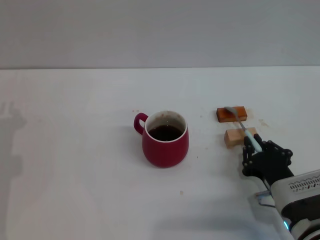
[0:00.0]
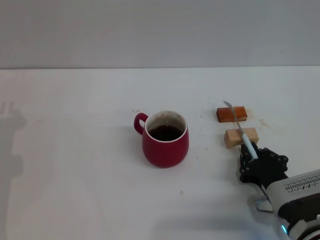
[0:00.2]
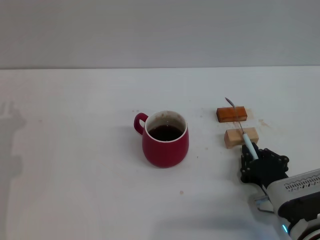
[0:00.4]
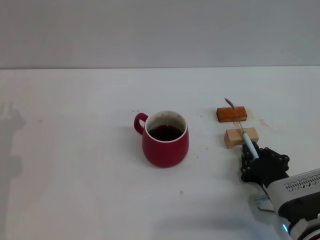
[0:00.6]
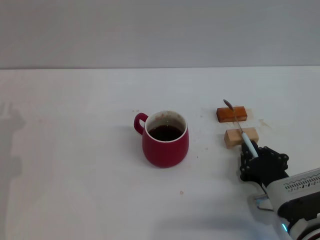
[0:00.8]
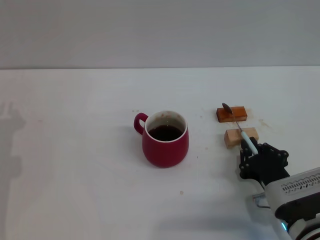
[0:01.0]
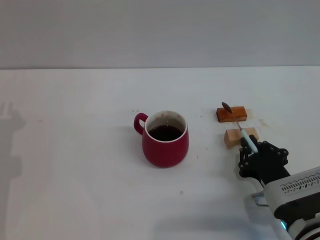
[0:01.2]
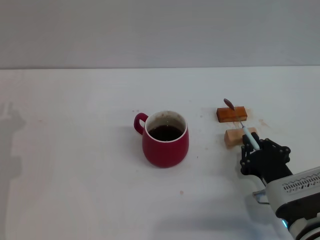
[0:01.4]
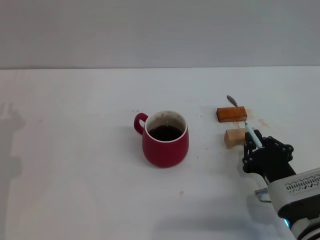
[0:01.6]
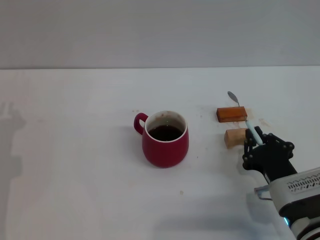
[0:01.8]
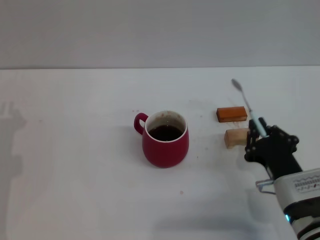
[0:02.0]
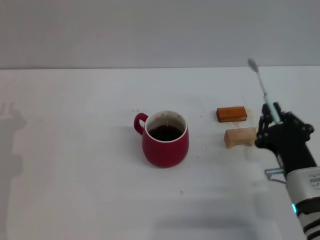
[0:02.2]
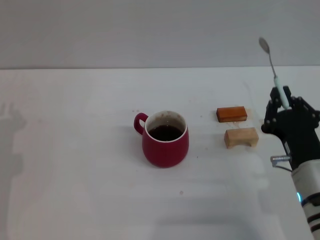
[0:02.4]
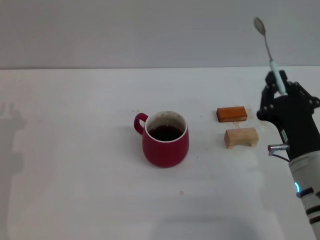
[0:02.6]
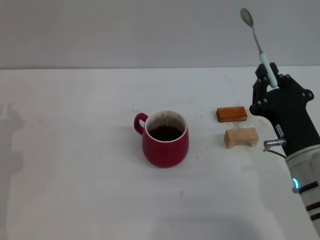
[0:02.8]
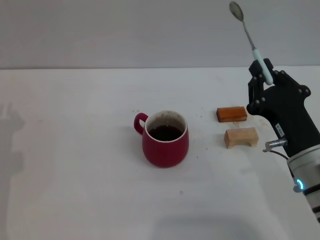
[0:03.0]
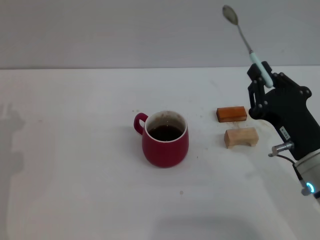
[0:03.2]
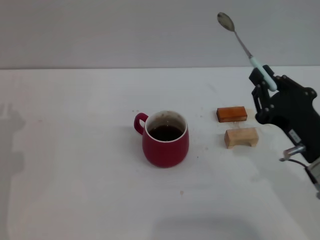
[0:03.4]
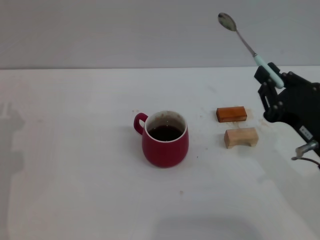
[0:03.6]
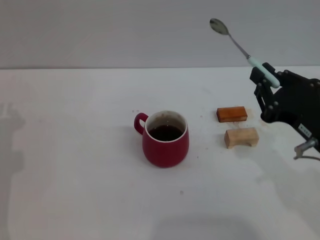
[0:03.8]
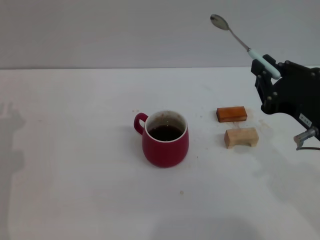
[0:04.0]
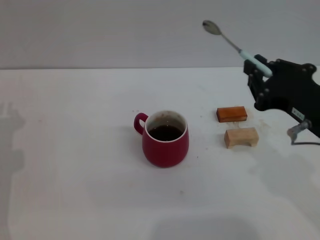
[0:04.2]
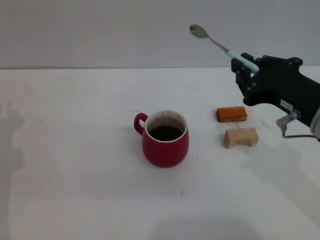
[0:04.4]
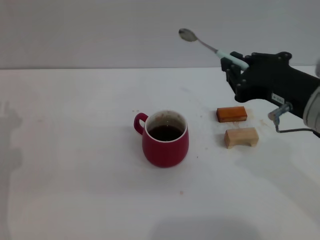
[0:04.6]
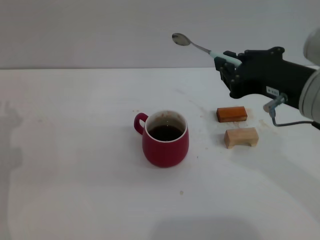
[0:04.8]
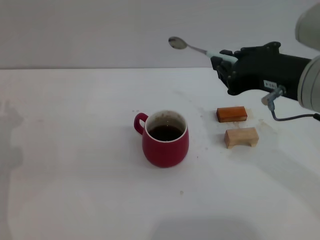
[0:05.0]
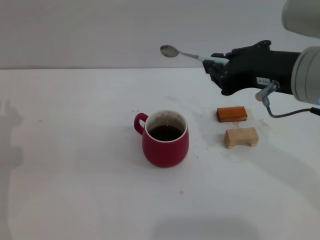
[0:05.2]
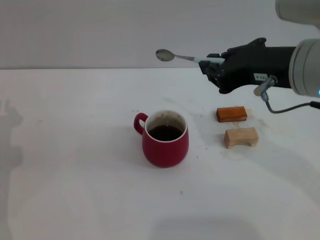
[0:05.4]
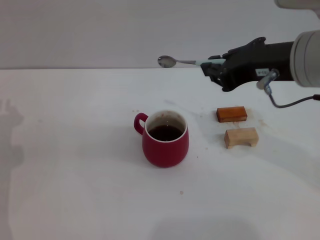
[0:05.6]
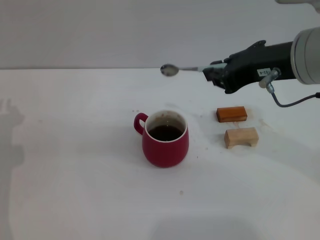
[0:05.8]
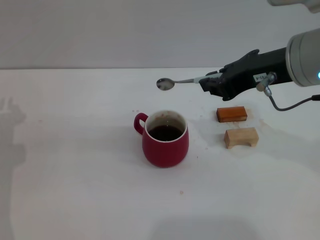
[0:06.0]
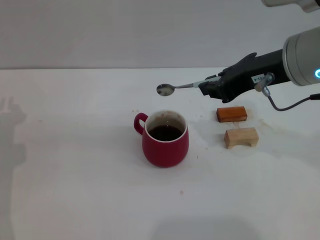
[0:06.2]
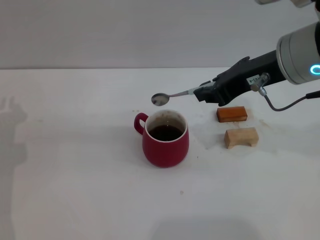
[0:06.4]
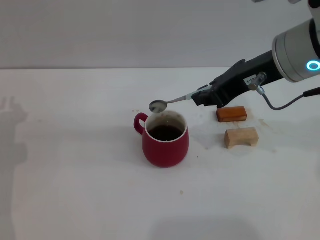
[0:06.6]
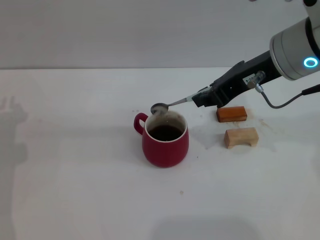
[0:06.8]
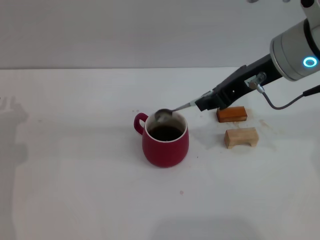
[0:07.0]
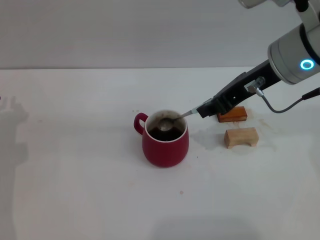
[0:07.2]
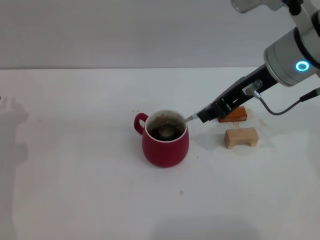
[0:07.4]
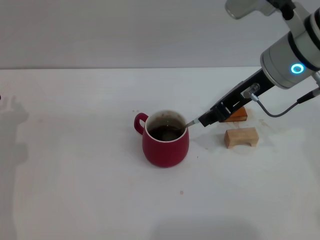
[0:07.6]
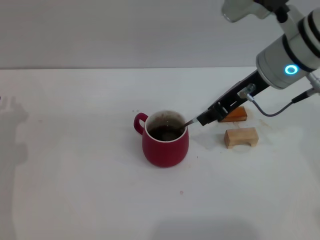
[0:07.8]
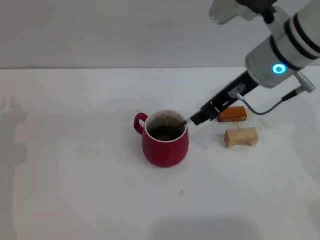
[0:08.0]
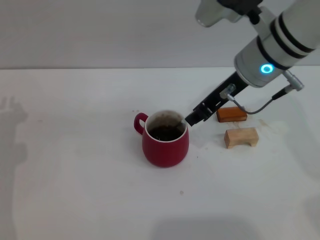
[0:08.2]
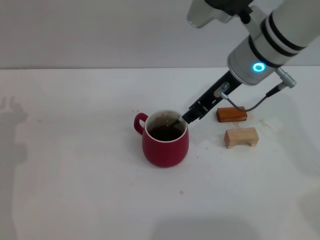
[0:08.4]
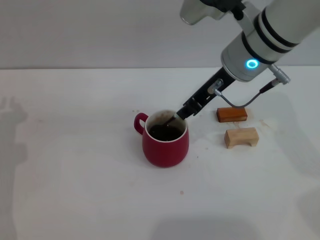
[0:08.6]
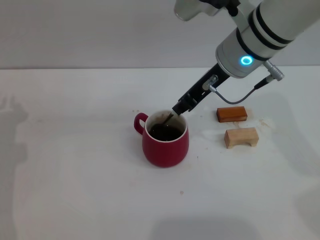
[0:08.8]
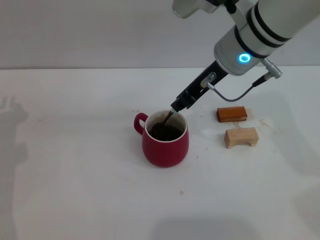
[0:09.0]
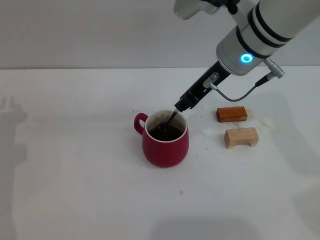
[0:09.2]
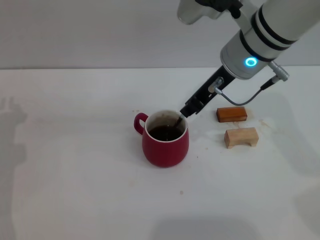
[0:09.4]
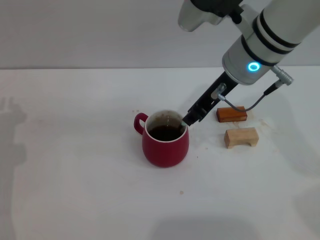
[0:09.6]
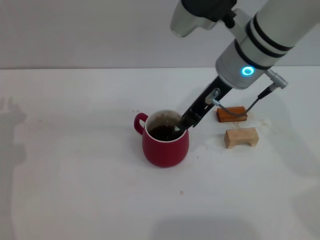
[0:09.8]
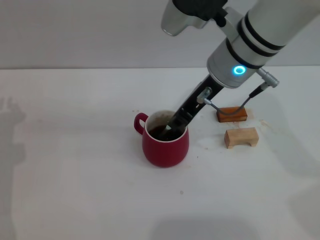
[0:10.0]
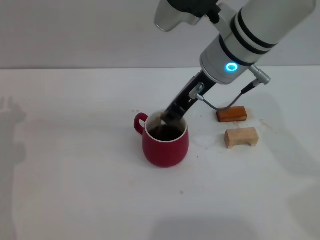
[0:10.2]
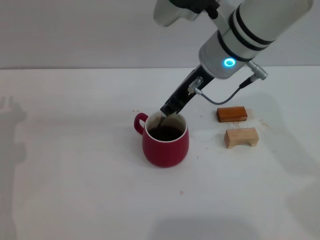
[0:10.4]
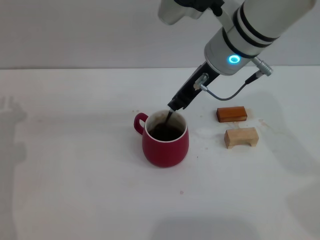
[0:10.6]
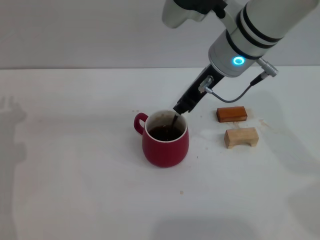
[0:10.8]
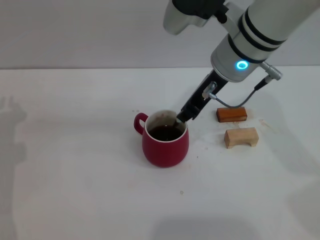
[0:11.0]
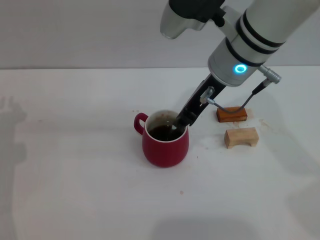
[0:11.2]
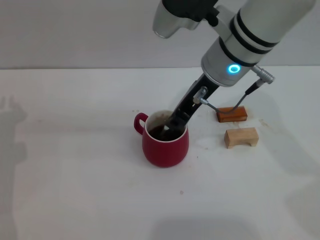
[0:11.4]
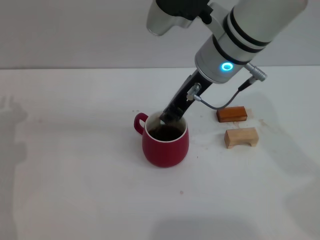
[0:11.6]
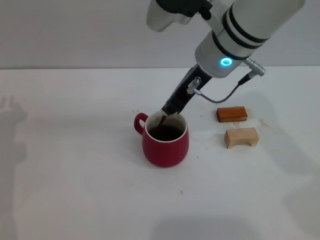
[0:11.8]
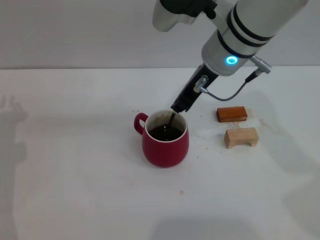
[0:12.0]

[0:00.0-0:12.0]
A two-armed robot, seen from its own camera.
Task of the whole recording: Move the red cup to the center, lift the blue spoon, stir it three times in the cup, and put the spoon into the cup.
0:00.0 to 0:01.6: Neither gripper changes place.
0:01.6 to 0:03.0: The right gripper goes some 10 cm upward.
0:03.0 to 0:04.4: The right gripper heads upward, covering roughly 10 cm.
0:04.4 to 0:06.0: The right gripper travels upward and forward by approximately 10 cm.
0:06.0 to 0:07.6: The right gripper goes some 5 cm forward.
0:07.6 to 0:09.0: The right gripper is displaced to the left by some 5 cm.
0:09.0 to 0:12.0: There are only small adjustments of the grippers.

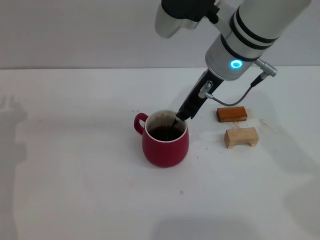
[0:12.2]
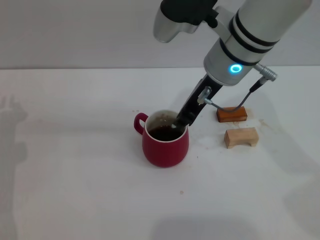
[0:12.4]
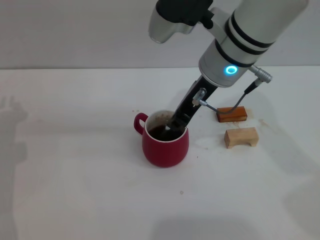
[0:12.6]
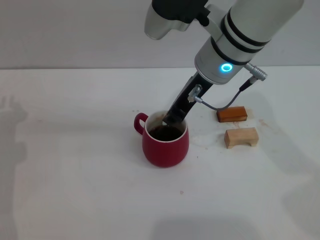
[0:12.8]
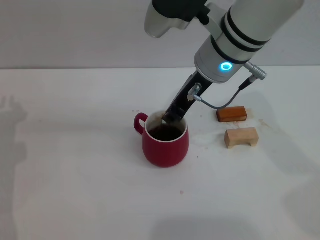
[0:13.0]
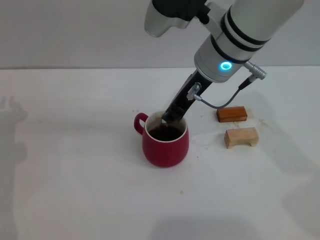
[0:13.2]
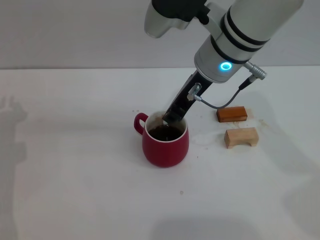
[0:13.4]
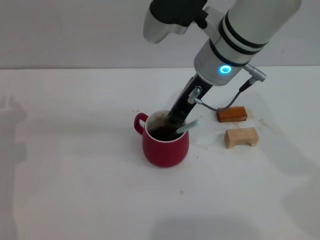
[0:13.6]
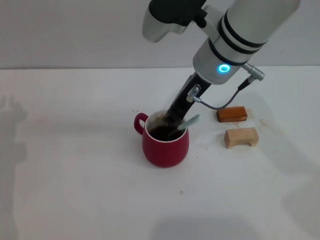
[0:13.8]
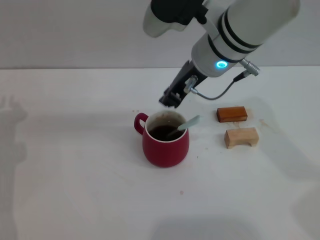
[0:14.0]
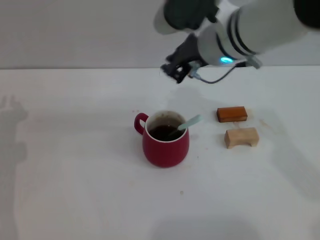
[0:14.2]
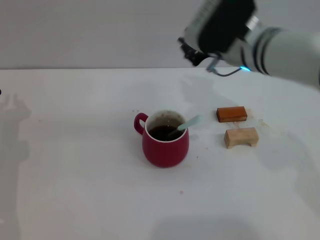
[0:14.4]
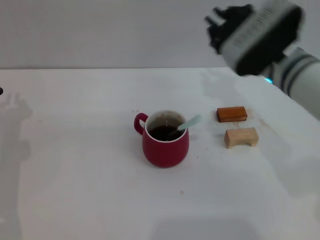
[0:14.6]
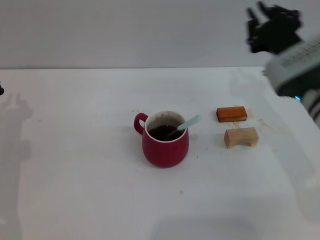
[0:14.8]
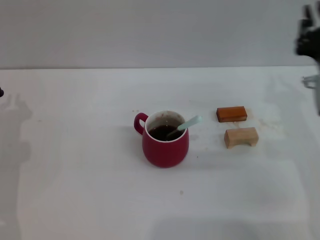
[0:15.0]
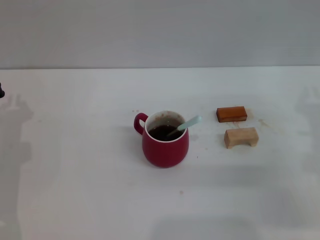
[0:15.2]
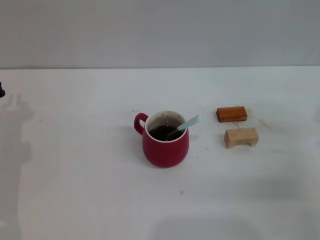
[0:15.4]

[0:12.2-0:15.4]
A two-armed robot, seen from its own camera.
Task of the whole recording: Move the red cup to the center, lift the blue spoon, stir it three times in the cup, and put the spoon into the cup.
0:12.2 to 0:13.8: The grippers stay close to where they were, moving slightly.
0:13.8 to 0:15.4: The right gripper travels to the right, downward and backward by approximately 30 cm.

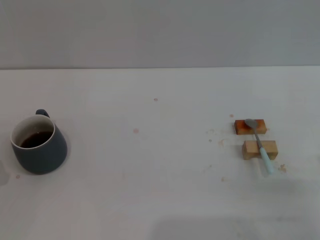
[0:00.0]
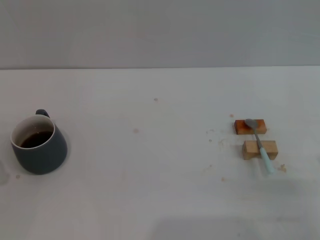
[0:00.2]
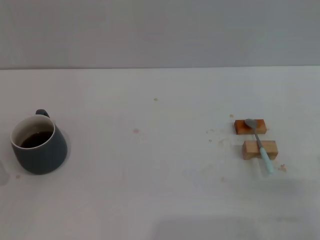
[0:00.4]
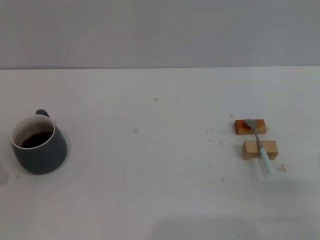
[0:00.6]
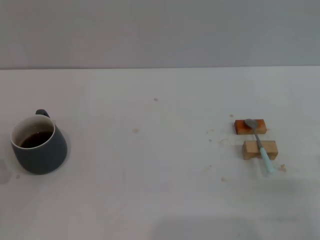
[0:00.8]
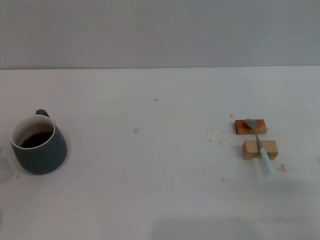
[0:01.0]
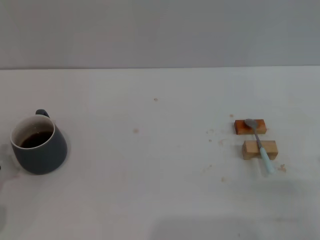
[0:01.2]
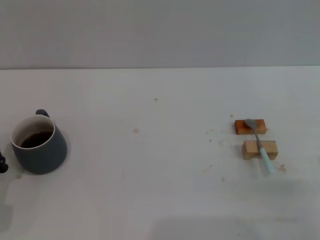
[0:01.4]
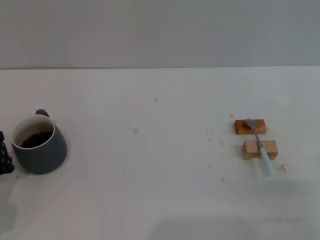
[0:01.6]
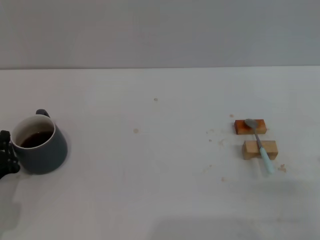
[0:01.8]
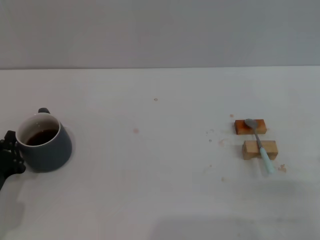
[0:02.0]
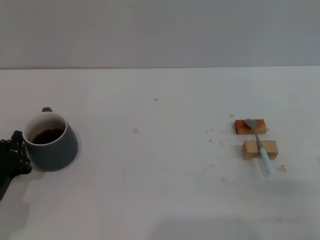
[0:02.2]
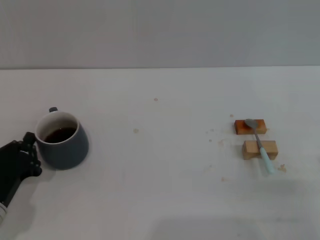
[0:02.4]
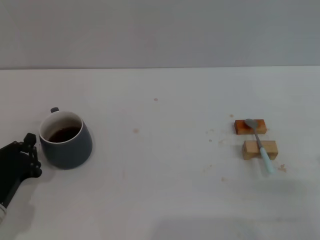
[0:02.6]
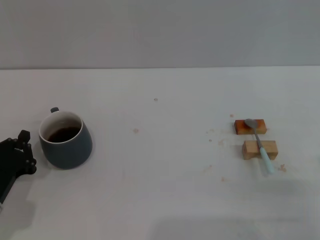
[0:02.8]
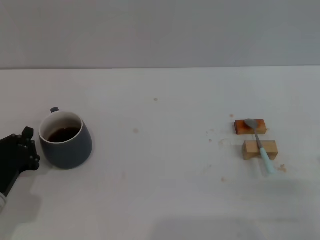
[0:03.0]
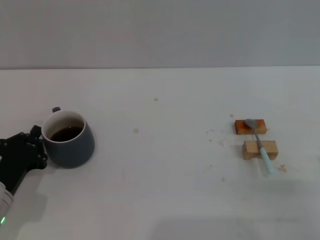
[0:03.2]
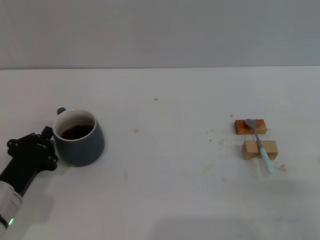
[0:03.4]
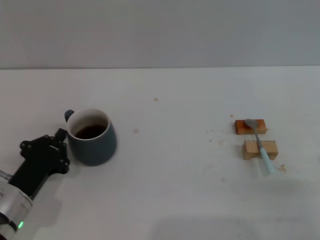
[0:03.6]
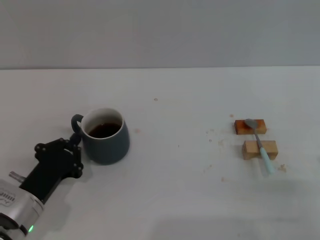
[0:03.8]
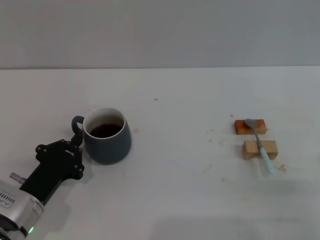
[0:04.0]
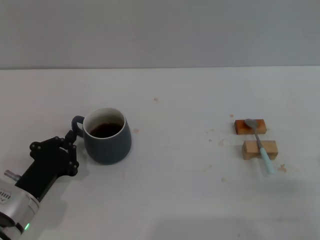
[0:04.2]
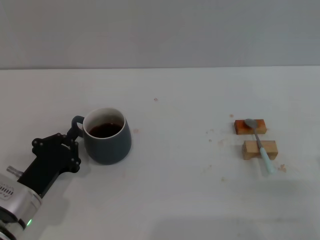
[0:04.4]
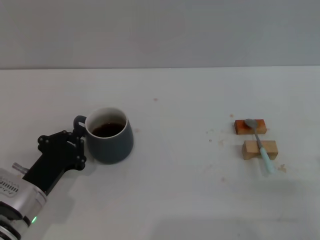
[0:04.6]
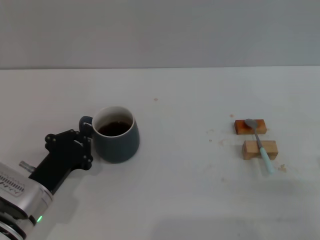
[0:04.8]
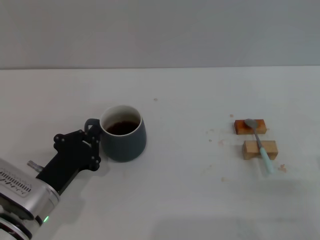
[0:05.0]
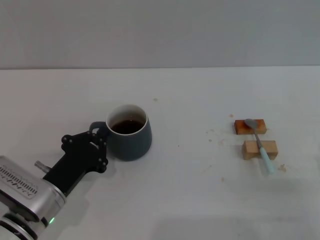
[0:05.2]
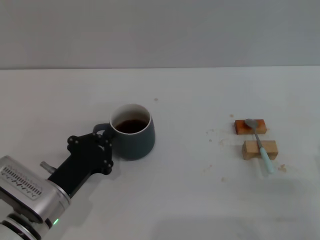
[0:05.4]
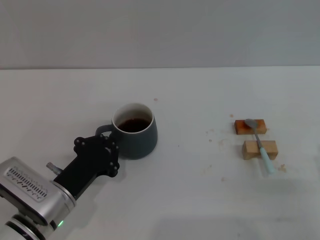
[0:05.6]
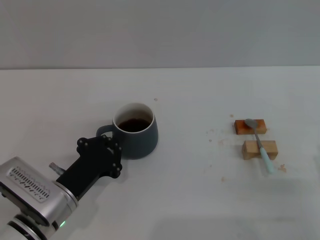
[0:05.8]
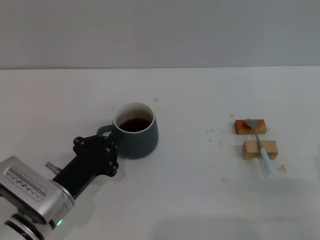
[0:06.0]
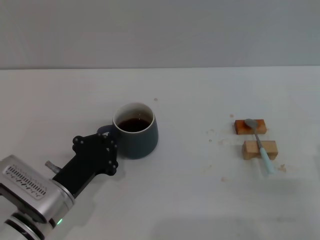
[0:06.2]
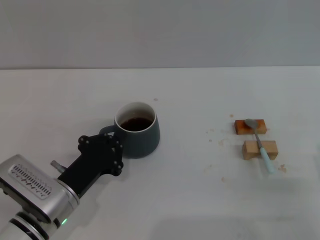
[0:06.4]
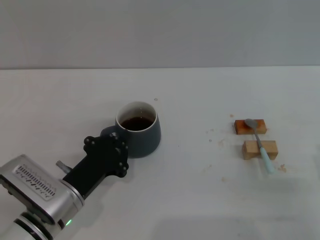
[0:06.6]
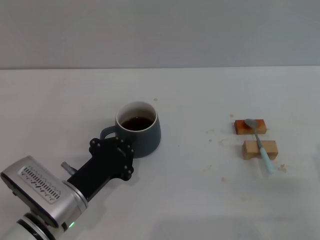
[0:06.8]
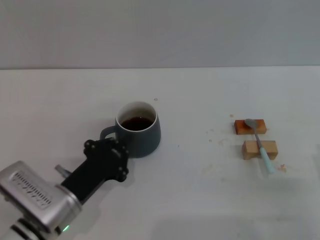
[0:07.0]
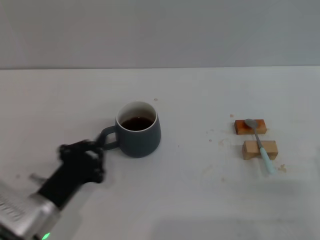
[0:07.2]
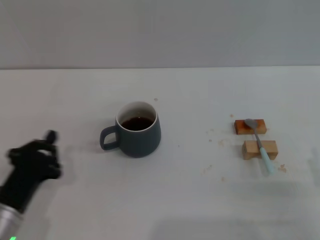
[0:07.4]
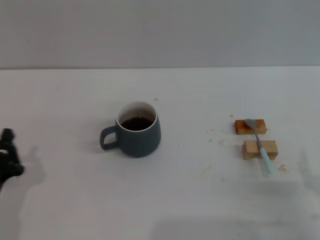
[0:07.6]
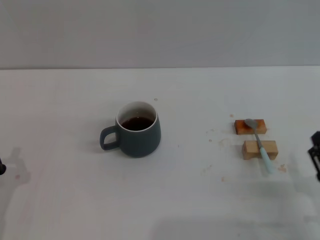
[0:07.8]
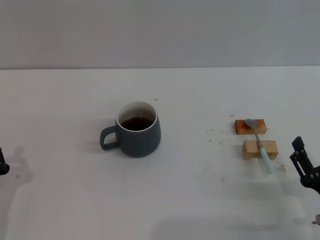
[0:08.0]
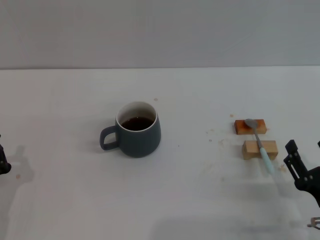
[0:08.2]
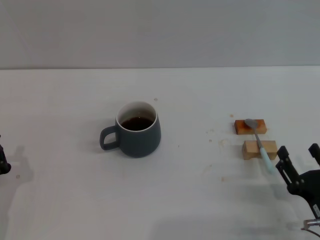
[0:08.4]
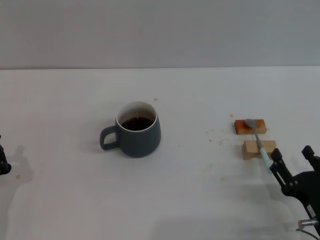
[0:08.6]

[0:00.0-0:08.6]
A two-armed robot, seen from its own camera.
Task of the whole recording: Move the grey cup to the center, lift the blue spoon, stir it three times in the cup, and put the spoon into the cup.
Step, 0:00.0 to 0:07.2: Move the cup with coffee to the center of view with the left gripper.
0:01.4 to 0:02.8: The grippers move only a little.
0:02.8 to 0:04.4: There are only small adjustments of the grippers.
0:04.4 to 0:05.8: There are only small adjustments of the grippers.
0:05.8 to 0:07.2: The grippers stay close to where they were, moving slightly.
0:07.2 to 0:08.6: The right gripper changes place by some 5 cm; the left gripper goes approximately 10 cm to the left.
